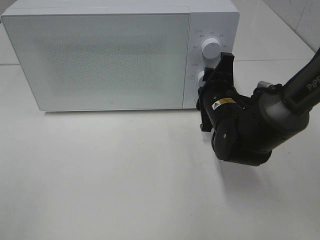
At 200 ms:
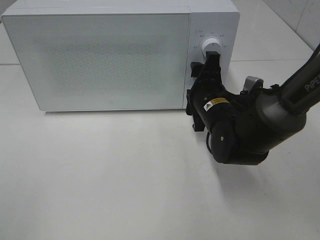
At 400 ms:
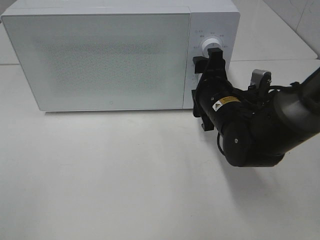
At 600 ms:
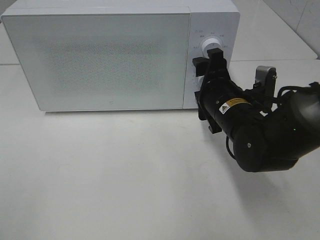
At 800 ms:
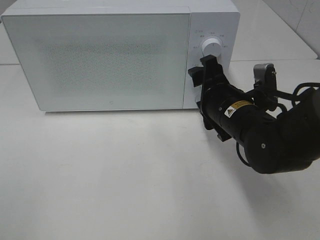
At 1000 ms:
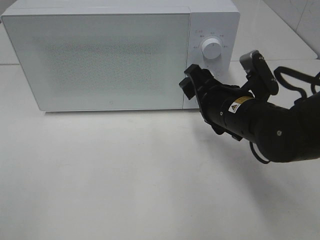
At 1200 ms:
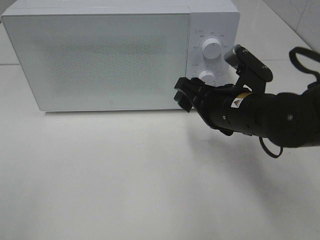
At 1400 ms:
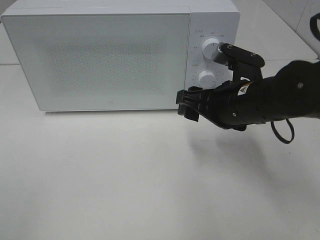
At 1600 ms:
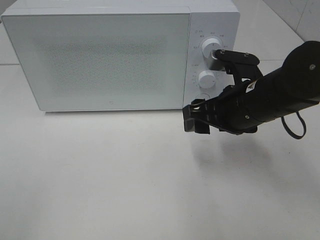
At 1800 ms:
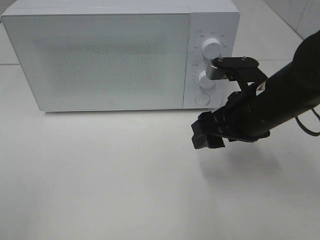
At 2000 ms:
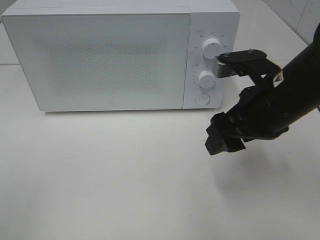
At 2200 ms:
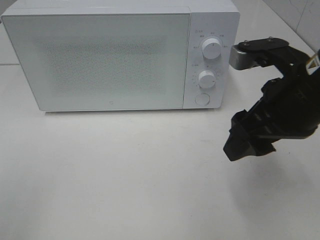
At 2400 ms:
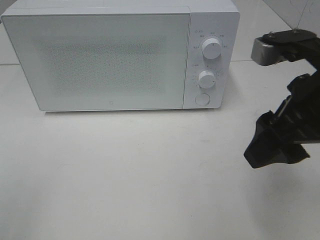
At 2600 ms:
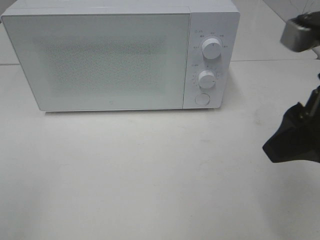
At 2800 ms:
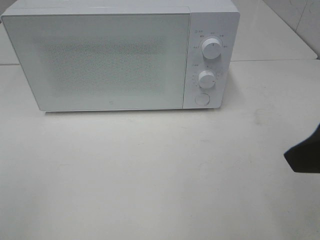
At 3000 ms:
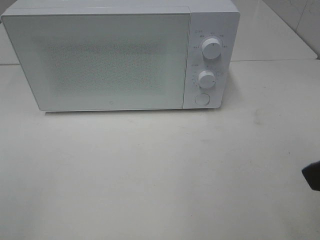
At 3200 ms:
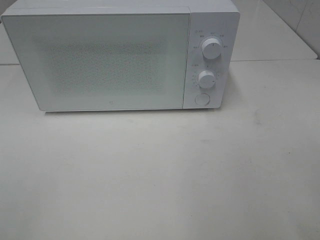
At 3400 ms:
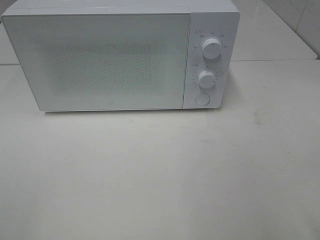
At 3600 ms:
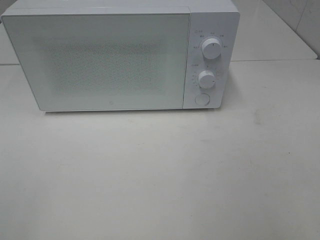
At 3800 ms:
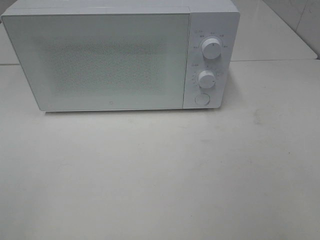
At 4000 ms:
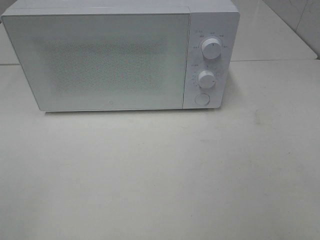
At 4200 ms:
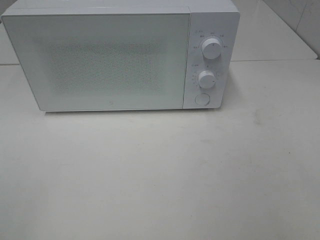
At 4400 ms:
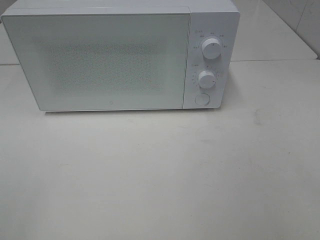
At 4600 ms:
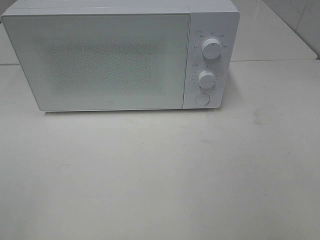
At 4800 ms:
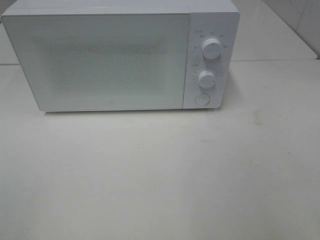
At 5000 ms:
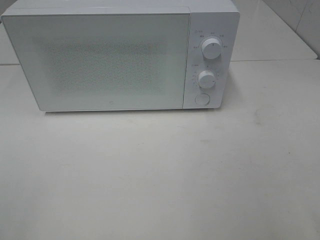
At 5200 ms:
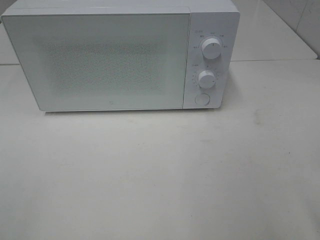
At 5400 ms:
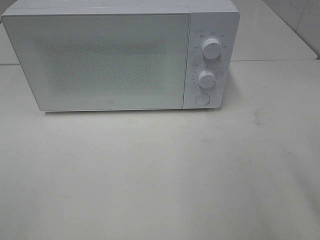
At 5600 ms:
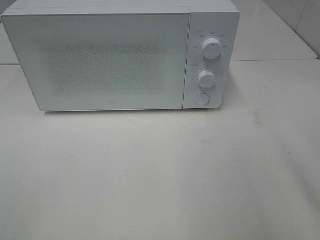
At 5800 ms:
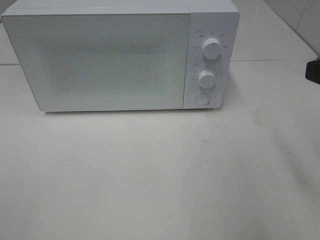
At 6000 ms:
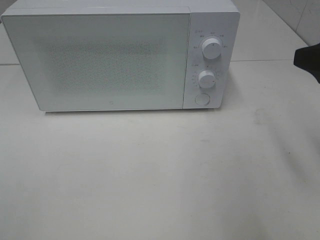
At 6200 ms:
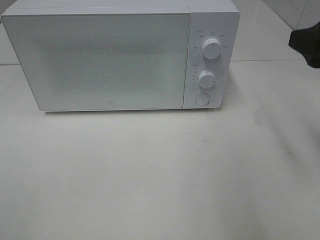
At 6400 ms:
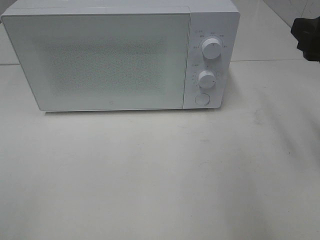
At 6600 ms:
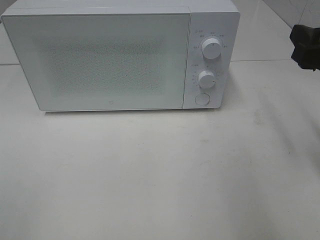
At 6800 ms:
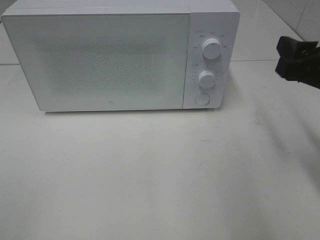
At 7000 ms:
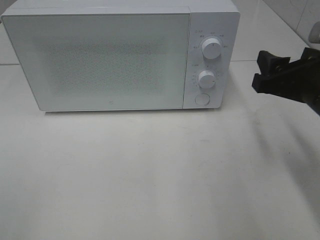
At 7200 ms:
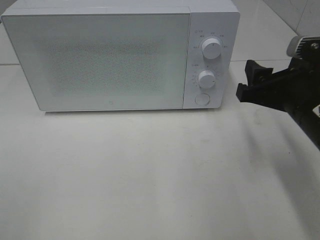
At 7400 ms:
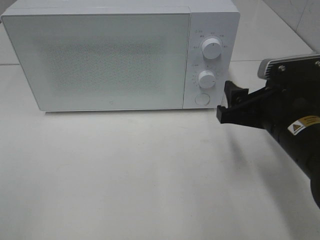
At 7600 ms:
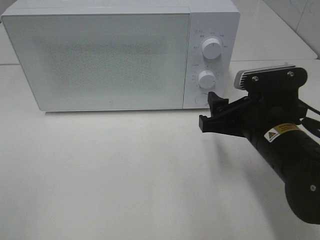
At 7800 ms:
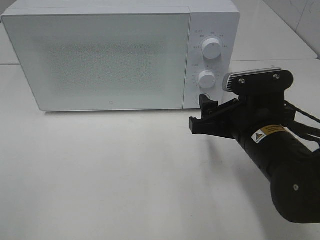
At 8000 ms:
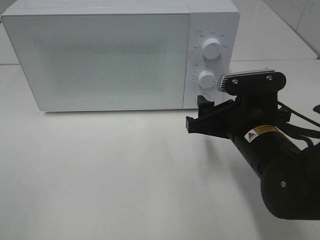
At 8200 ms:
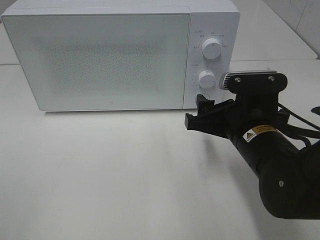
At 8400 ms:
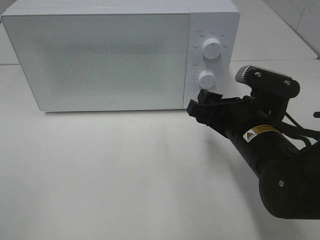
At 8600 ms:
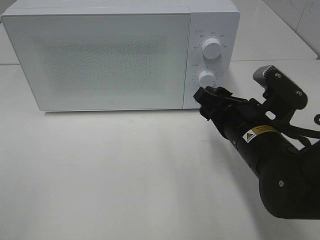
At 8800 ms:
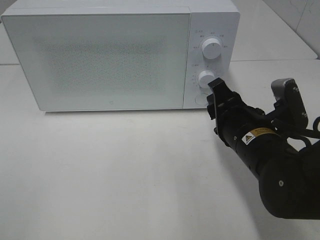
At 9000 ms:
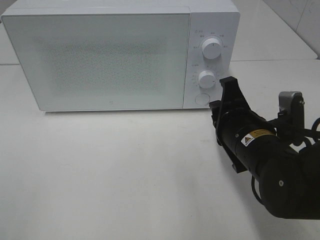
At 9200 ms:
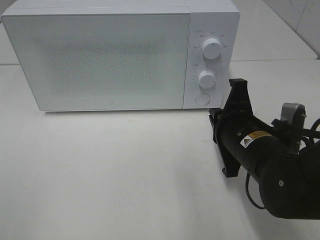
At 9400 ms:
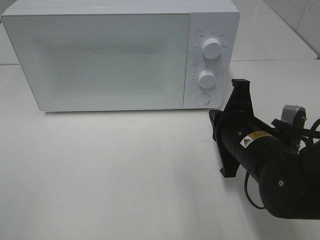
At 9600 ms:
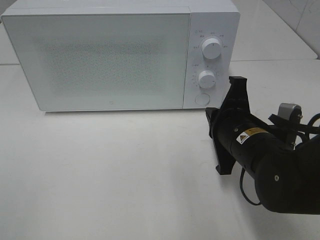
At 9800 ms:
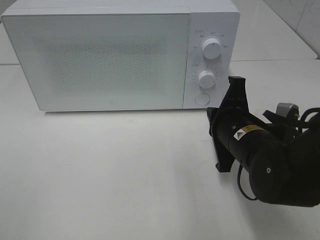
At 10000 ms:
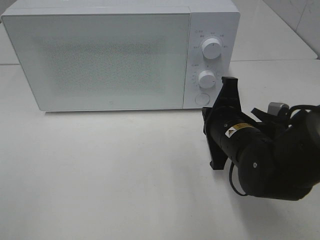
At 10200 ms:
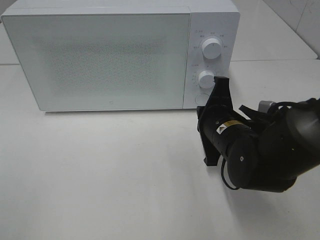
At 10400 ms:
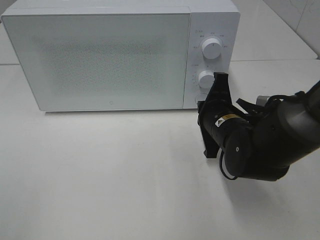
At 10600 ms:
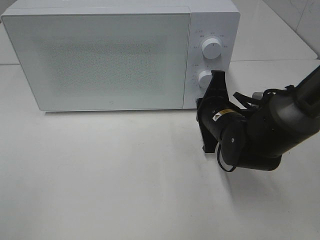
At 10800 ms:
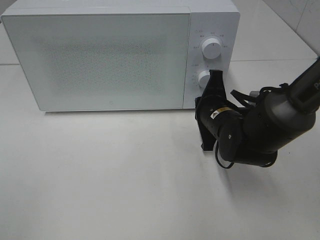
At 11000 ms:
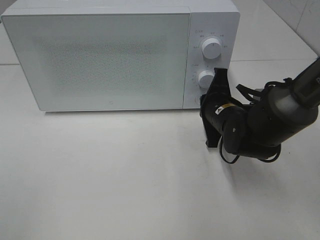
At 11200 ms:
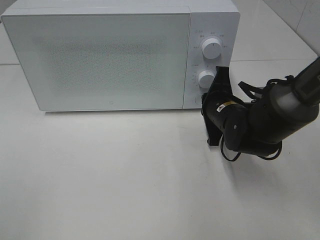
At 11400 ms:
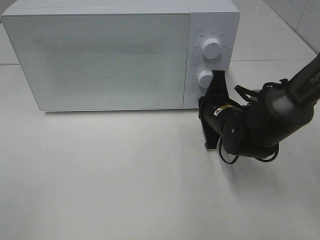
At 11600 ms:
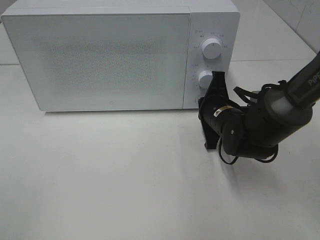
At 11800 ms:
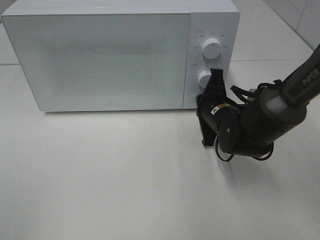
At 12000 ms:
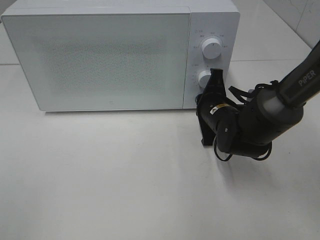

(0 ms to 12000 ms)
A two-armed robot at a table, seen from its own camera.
Task of the whole recording: Heat the burger.
0 ms - 1600 ms: The right gripper is displaced upward and backward by roughly 10 cm.
1600 ms - 3000 ms: The right gripper heads backward, upward and to the right, covering some 20 cm.
3000 ms - 4400 ms: The right gripper is displaced backward and to the right by about 10 cm.
4400 ms - 6000 ms: The right gripper heads forward, covering some 20 cm.
6000 ms - 7600 ms: The right gripper heads downward and to the left, covering some 15 cm.
7600 ms - 9000 ms: The right gripper closes up.
9000 ms - 10400 ms: The right gripper shifts about 5 cm forward.
10400 ms - 12000 ms: The right gripper is displaced forward by approximately 5 cm.

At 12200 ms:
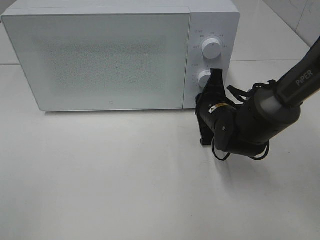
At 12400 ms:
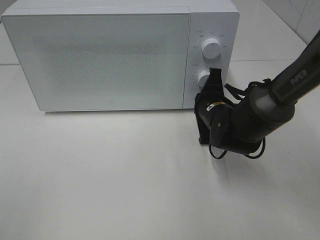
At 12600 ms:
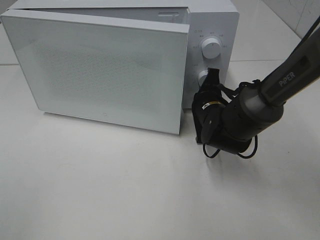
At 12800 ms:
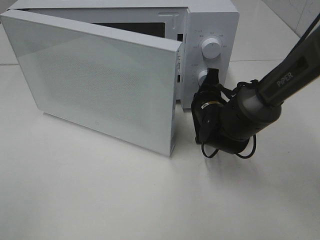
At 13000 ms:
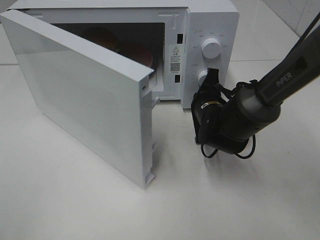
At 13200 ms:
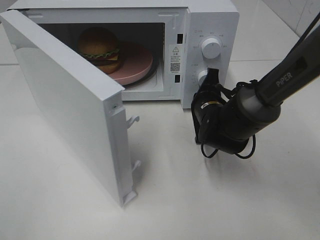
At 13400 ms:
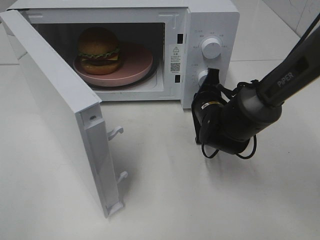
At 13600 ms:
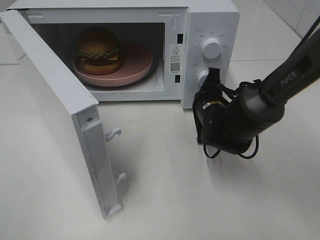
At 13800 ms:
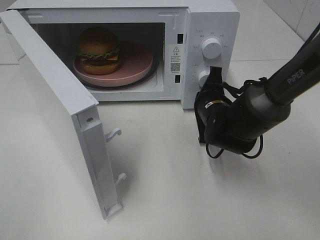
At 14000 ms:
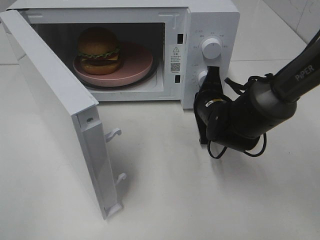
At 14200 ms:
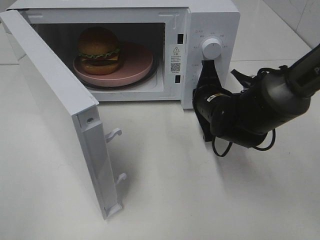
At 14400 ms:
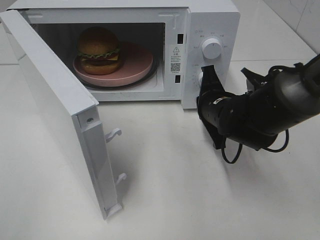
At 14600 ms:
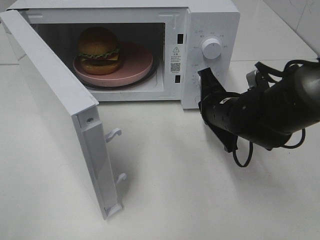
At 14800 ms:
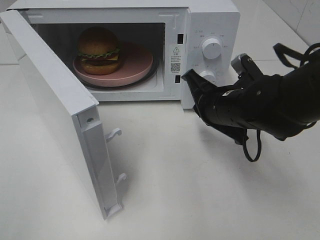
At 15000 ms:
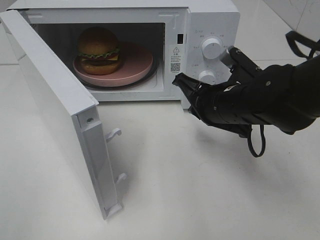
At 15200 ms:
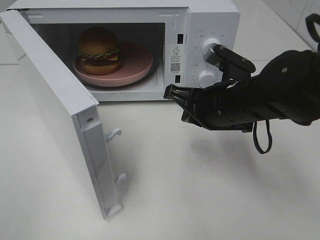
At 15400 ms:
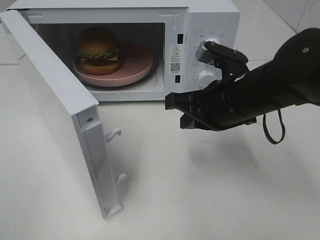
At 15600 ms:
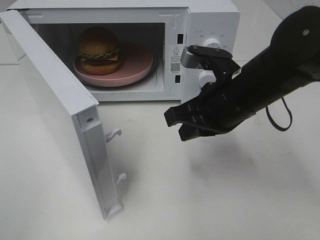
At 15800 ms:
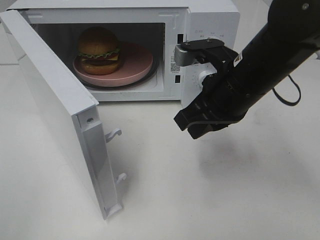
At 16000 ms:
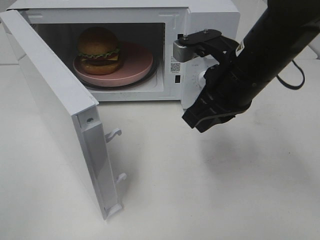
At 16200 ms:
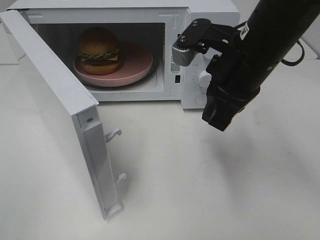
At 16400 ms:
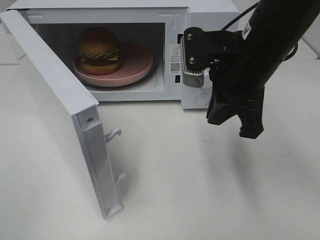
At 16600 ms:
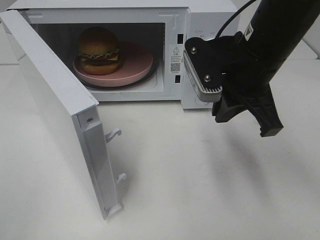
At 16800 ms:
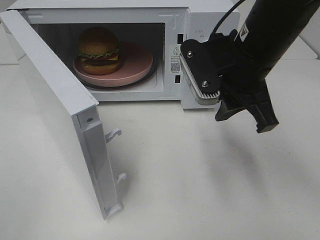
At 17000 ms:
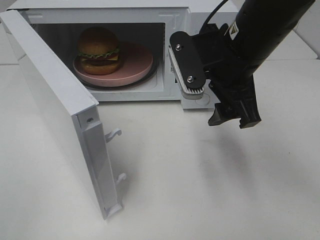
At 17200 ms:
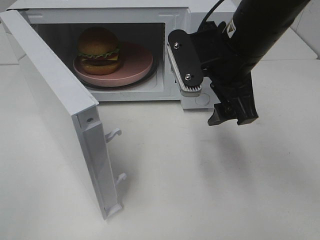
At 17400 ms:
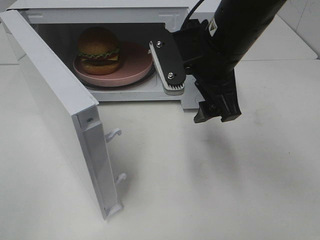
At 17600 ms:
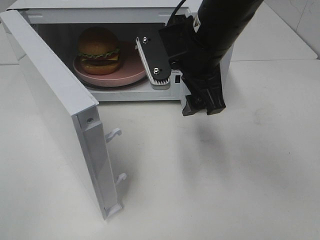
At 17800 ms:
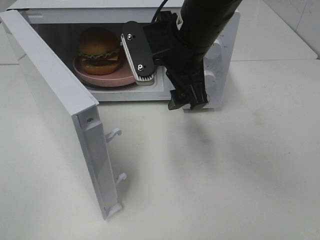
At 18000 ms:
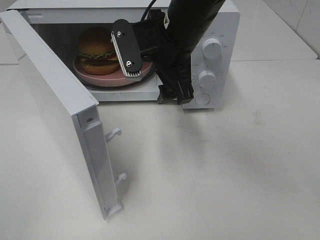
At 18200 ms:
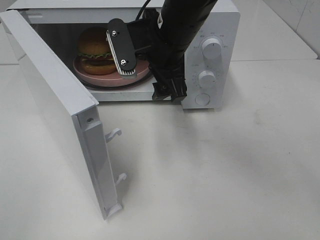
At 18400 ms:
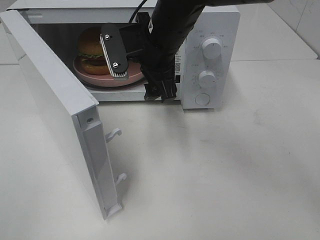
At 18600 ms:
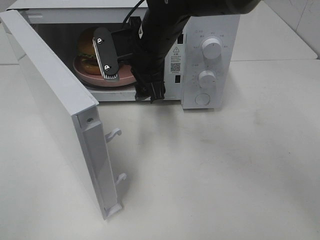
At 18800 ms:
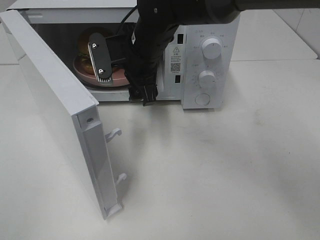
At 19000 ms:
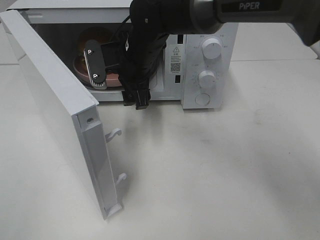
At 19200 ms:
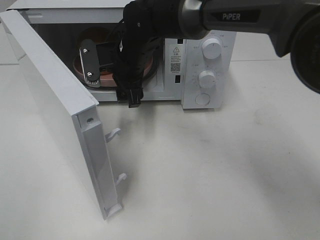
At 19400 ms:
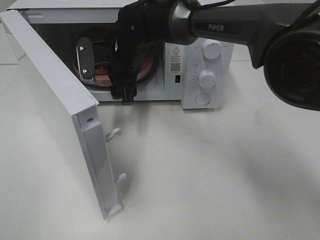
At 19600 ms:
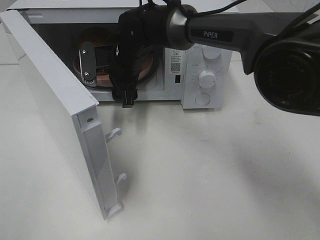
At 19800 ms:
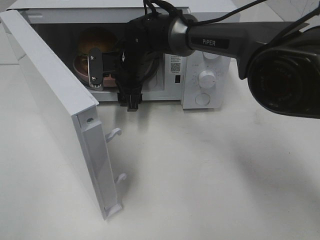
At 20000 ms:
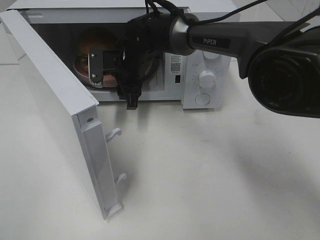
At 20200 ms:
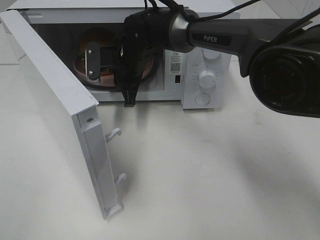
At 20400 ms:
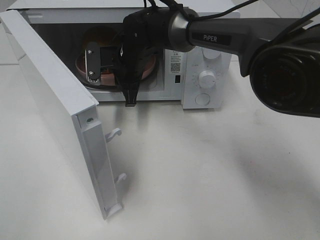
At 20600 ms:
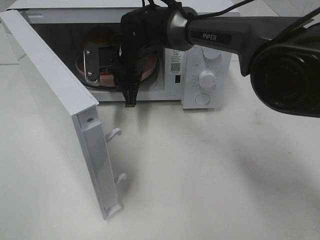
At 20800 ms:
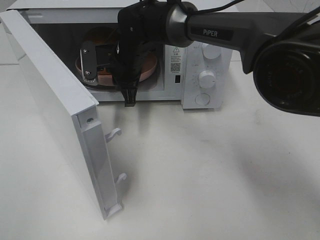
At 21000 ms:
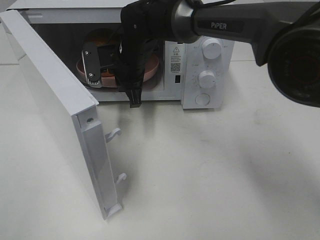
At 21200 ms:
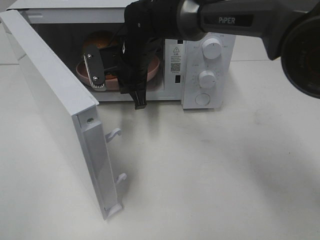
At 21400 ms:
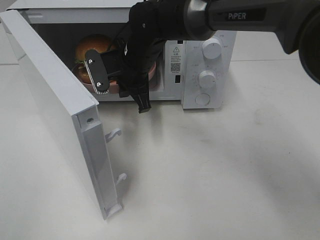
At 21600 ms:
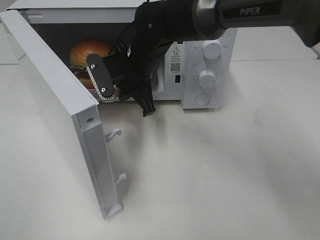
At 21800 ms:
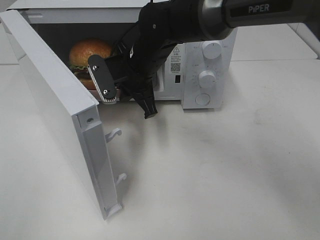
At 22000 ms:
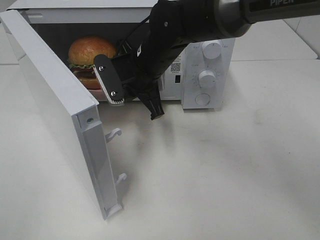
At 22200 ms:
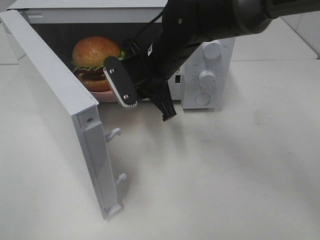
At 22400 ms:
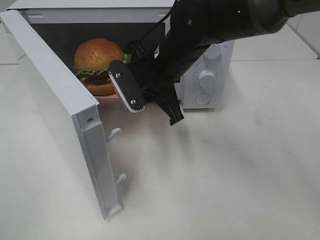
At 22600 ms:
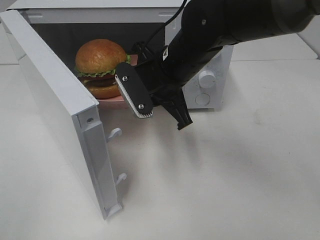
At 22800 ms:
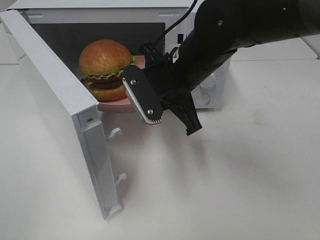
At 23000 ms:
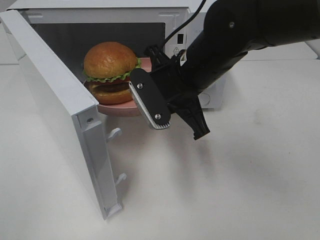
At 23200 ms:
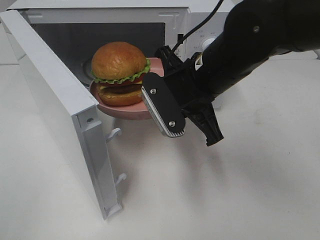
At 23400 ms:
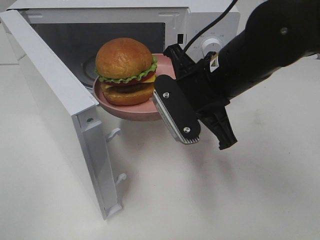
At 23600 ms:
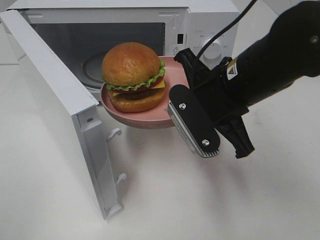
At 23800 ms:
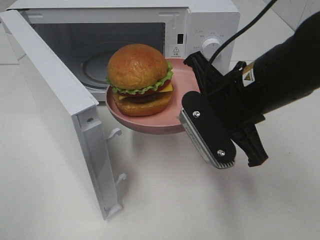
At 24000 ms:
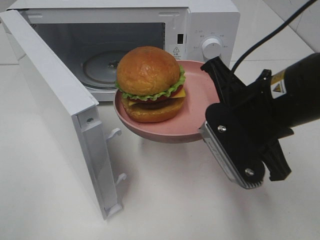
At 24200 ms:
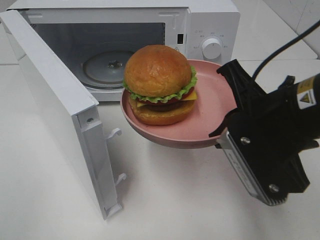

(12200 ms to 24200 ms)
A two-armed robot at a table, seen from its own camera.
Task of the whole recording: Heat the burger.
Step, 12200 ms - 14600 ms: Right hand: press the switch.
Step, 14800 ms - 20600 ms: Right hand: grab the plate with the hamburger.
13800 ms - 15200 ms: The right gripper shifts some 10 cm upward and backward.
15200 ms - 16600 ms: The right gripper moves upward, roughly 10 cm.
16600 ms - 18200 ms: The right gripper travels to the left and forward by about 10 cm, and opens up.
18200 ms - 19800 ms: The right gripper is displaced downward, forward and to the left by roughly 15 cm.
19800 ms - 21200 ms: The right gripper closes.
21200 ms - 22600 ms: The right gripper travels backward and to the right by some 10 cm.
22600 ms - 24200 ms: The right gripper is displaced backward and to the right by some 20 cm.
